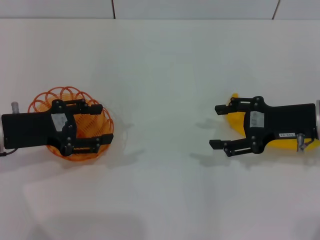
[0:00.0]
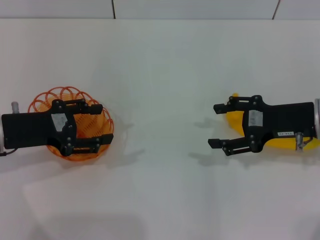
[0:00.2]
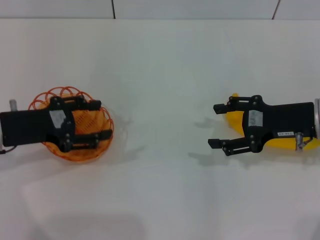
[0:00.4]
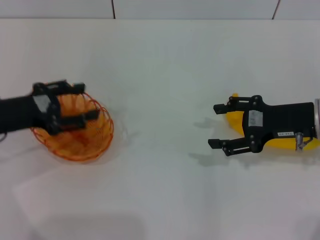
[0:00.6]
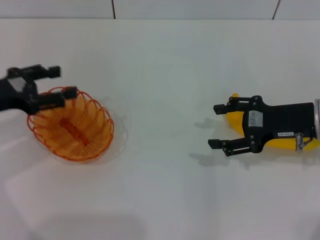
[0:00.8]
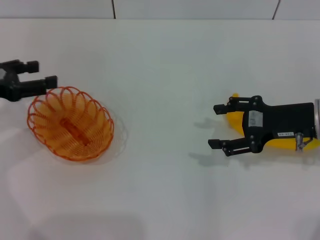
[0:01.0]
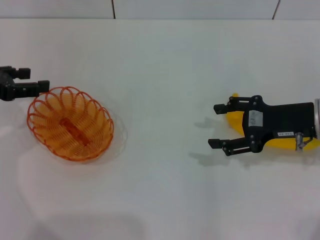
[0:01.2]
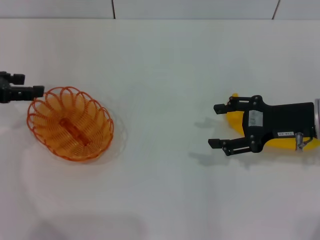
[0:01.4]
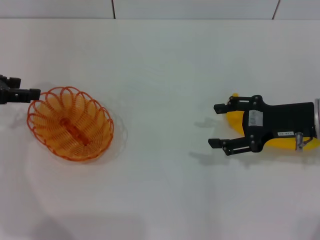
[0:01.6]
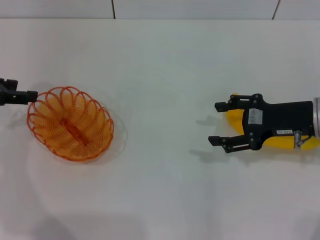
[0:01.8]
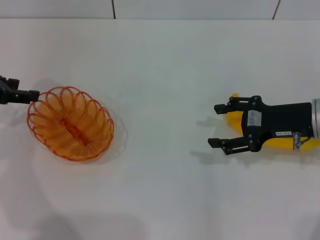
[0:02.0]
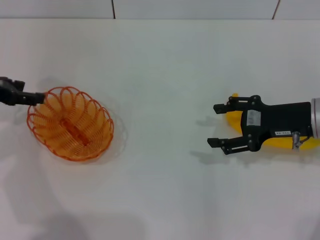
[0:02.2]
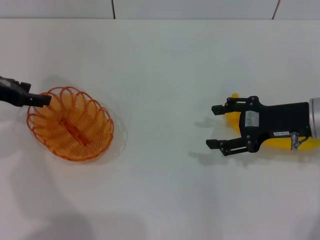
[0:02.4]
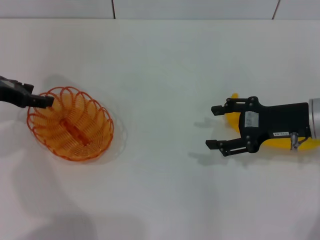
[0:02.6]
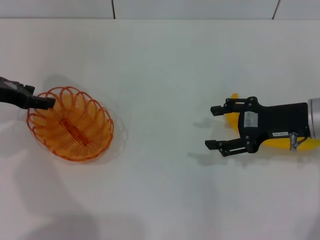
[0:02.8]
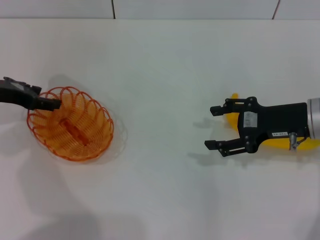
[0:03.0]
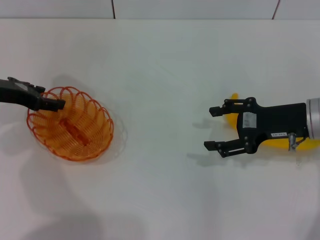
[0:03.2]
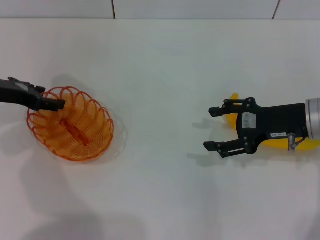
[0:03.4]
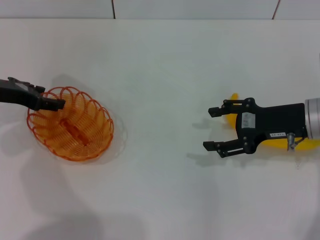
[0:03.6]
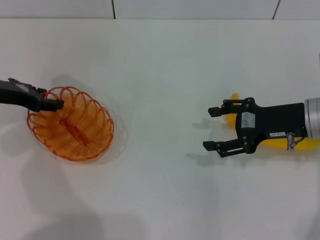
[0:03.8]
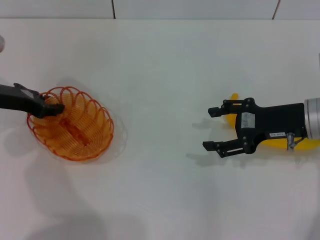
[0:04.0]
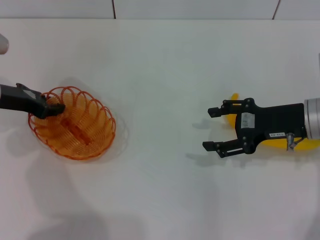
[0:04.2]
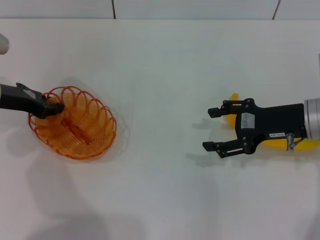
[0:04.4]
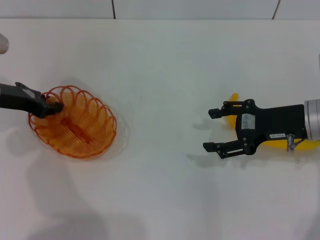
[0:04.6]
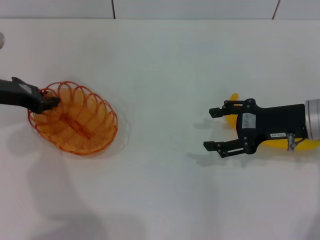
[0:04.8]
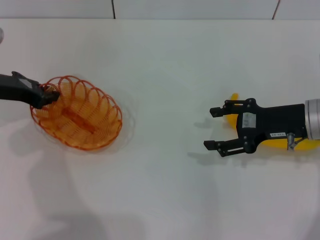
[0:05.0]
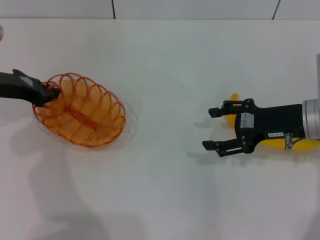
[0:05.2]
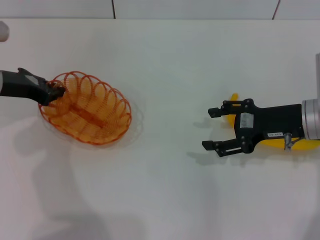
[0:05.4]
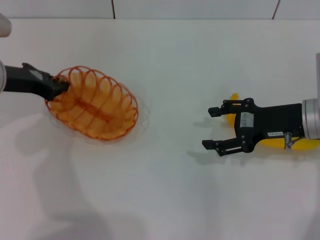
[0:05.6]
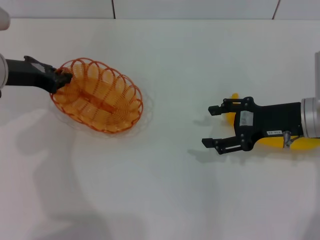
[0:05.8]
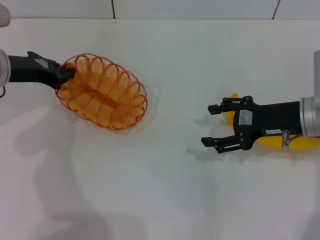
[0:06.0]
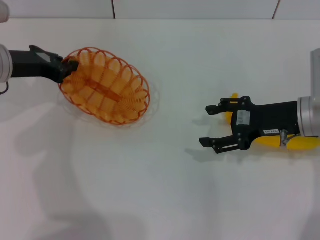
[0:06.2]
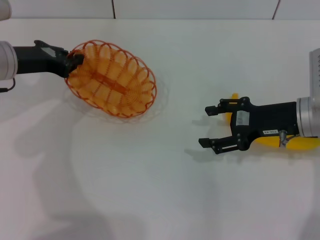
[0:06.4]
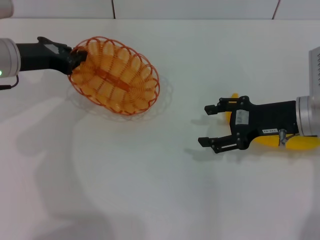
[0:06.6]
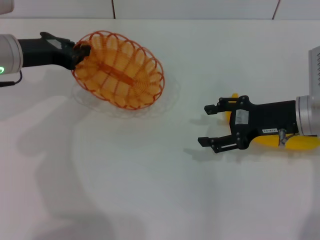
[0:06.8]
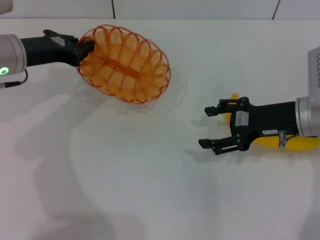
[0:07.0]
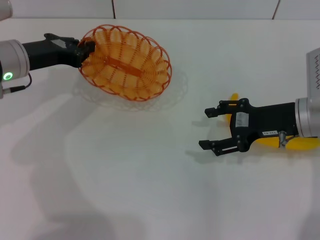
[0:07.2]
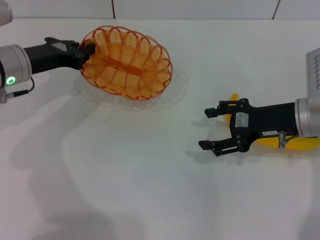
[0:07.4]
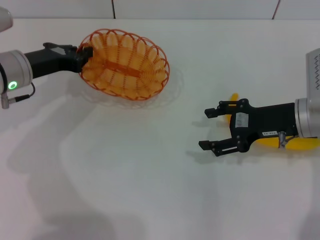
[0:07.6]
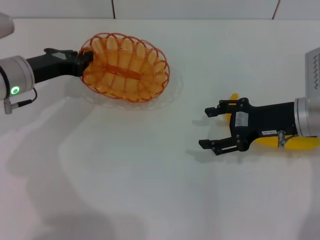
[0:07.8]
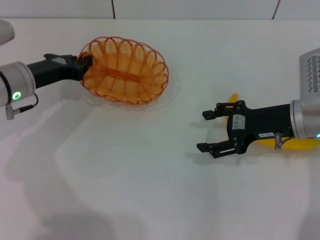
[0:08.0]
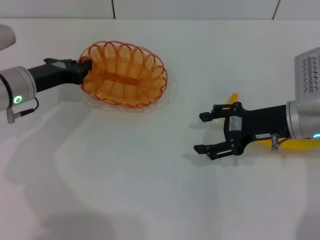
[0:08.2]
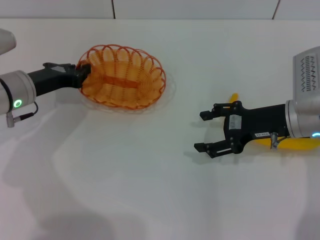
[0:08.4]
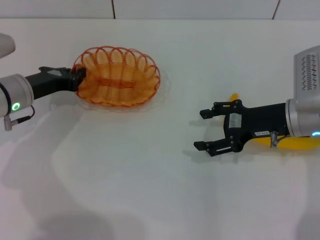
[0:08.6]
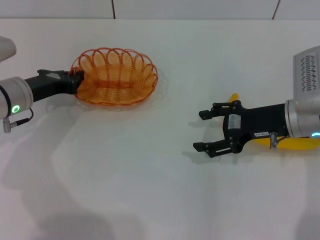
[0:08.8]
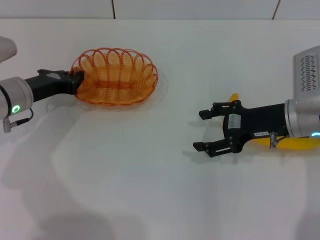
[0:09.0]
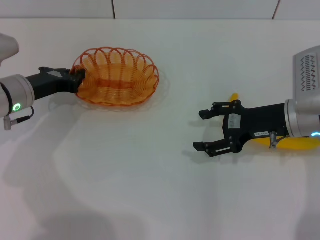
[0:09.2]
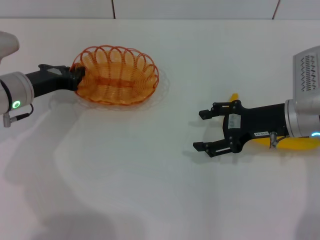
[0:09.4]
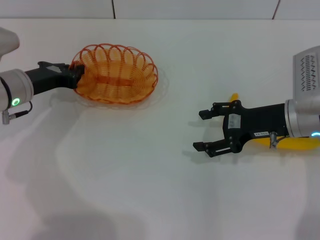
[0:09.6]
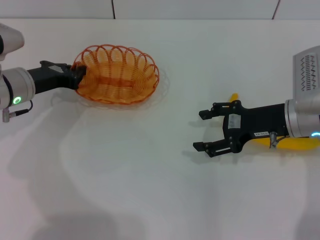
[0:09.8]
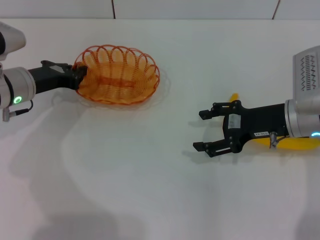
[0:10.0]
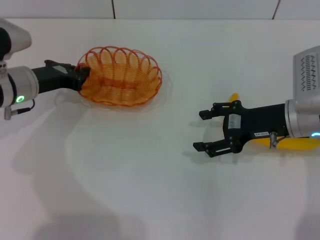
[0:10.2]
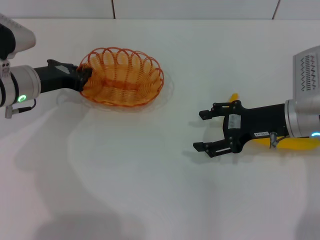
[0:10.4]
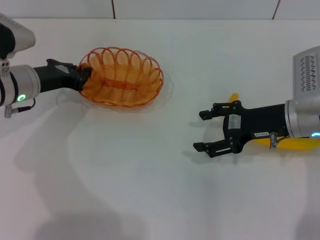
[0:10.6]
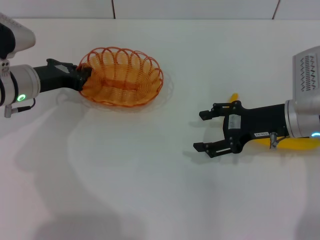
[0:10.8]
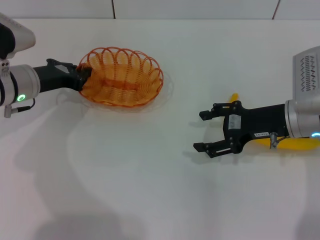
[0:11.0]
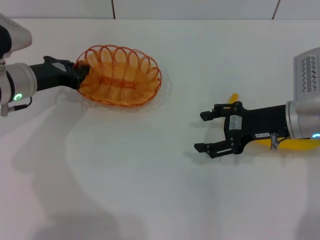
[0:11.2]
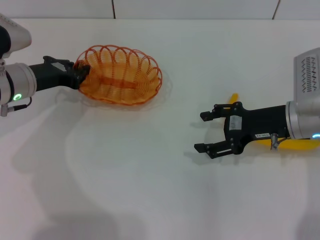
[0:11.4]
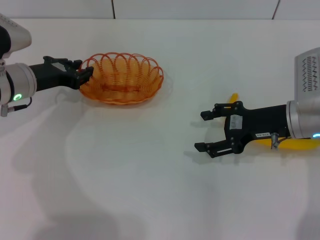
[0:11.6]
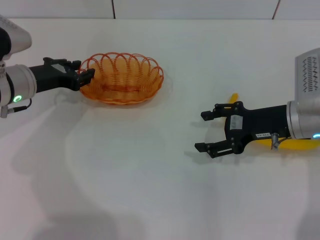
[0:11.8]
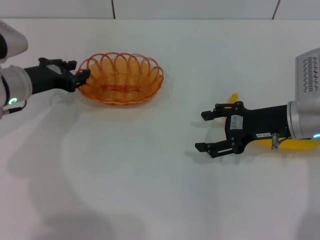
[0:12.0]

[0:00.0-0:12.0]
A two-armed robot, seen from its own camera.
Step, 0:00.0 to 0:05.8: Pick up the basket with the left gripper.
0:00.0 to 0:01.6: The left gripper travels to the left and upward by approximately 10 cm.
0:01.6 to 0:03.0: The left gripper moves about 5 cm.
0:03.0 to 0:04.4: The left gripper closes its fingers.
0:04.4 to 0:06.0: The grippers move only a little.
0:06.0 to 0:07.6: The grippers move only a little.
0:07.6 to 0:10.4: The grippers move only a little.
0:10.4 to 0:12.0: The left gripper opens up.

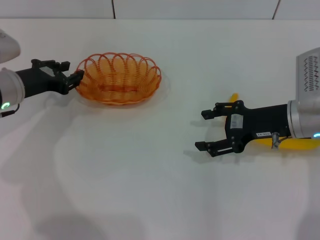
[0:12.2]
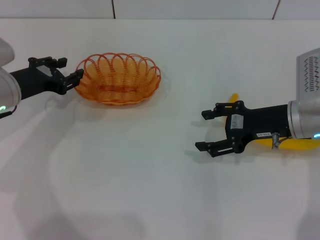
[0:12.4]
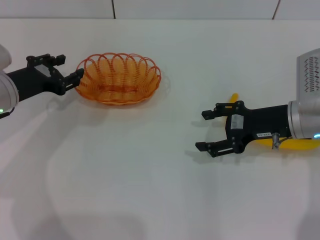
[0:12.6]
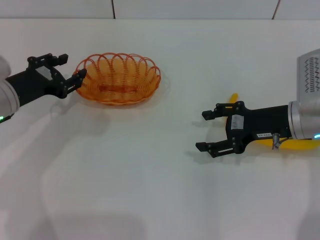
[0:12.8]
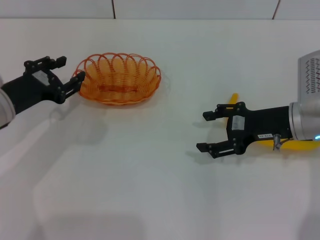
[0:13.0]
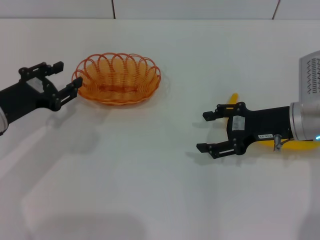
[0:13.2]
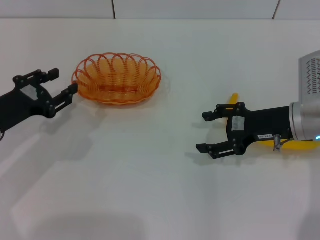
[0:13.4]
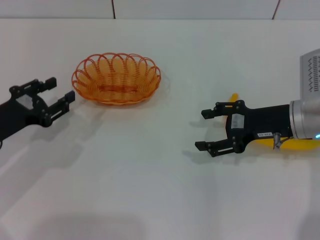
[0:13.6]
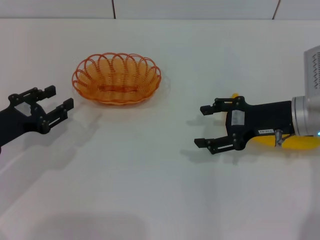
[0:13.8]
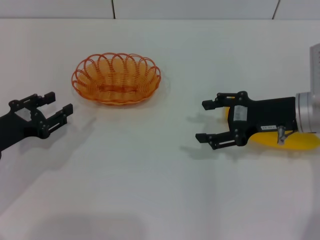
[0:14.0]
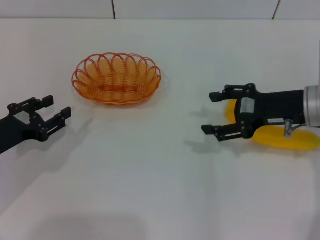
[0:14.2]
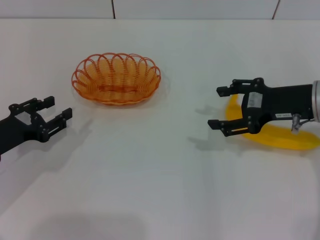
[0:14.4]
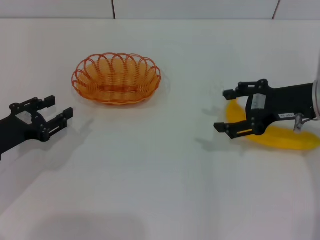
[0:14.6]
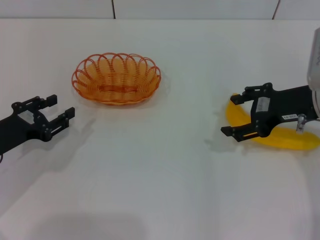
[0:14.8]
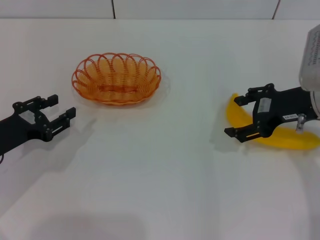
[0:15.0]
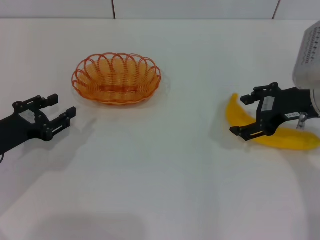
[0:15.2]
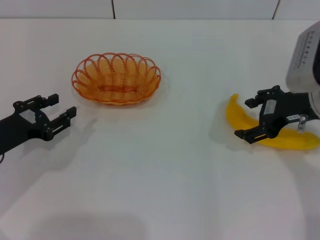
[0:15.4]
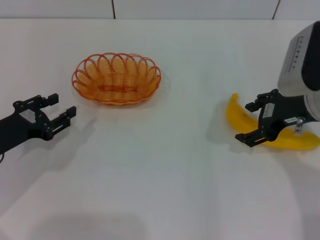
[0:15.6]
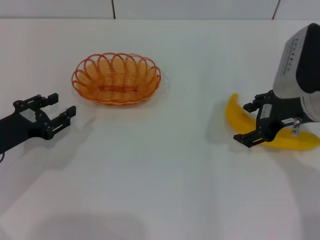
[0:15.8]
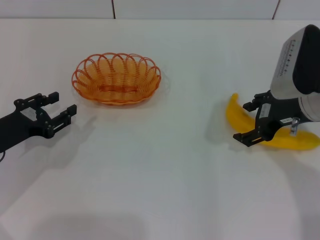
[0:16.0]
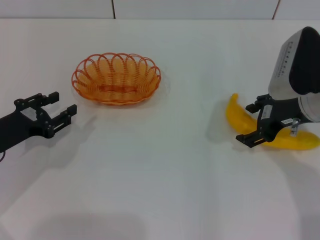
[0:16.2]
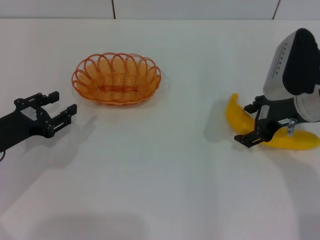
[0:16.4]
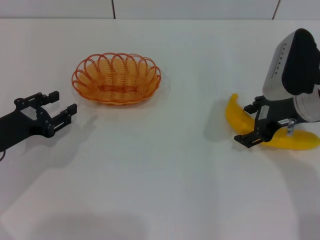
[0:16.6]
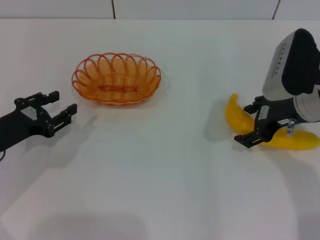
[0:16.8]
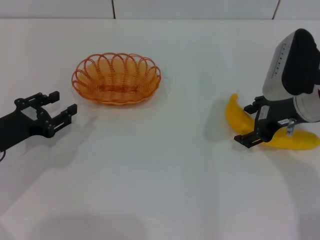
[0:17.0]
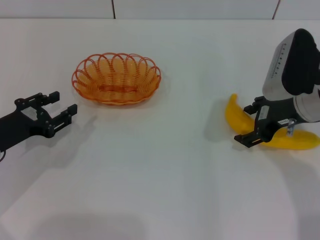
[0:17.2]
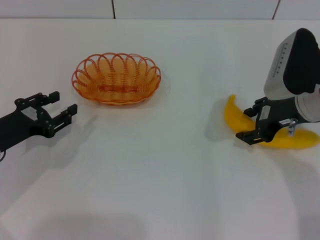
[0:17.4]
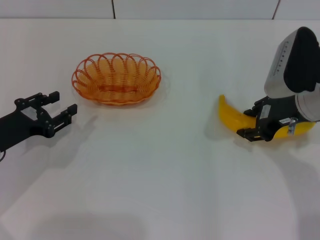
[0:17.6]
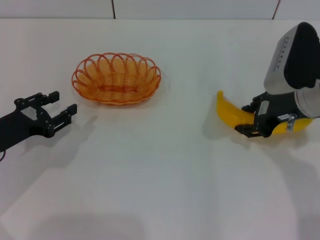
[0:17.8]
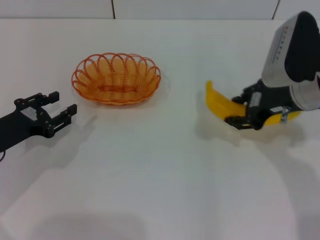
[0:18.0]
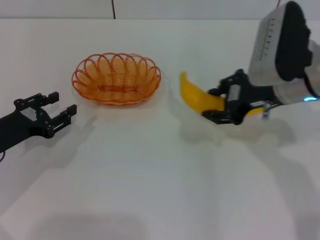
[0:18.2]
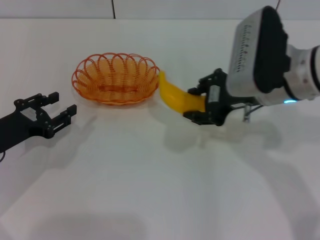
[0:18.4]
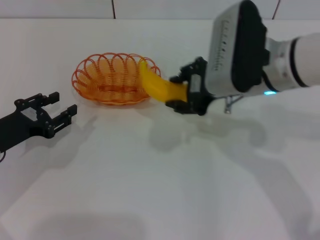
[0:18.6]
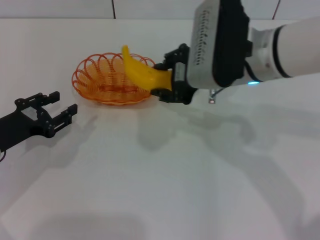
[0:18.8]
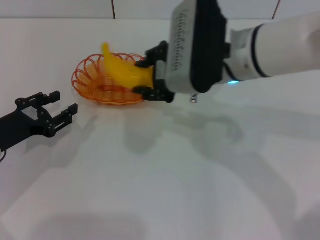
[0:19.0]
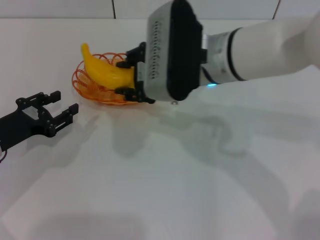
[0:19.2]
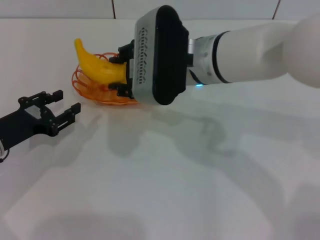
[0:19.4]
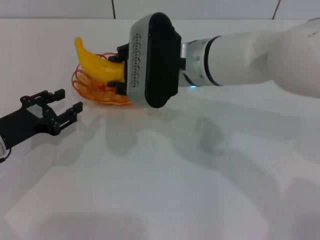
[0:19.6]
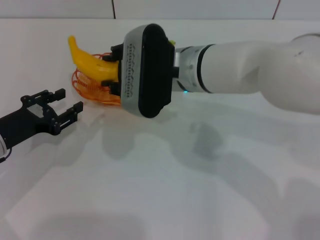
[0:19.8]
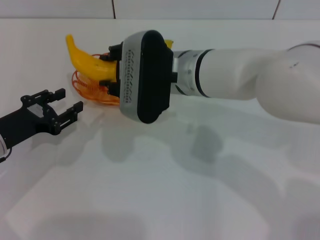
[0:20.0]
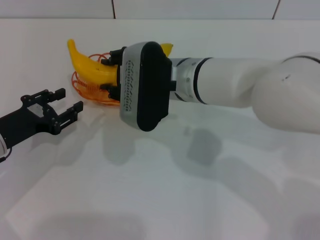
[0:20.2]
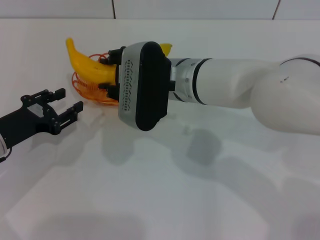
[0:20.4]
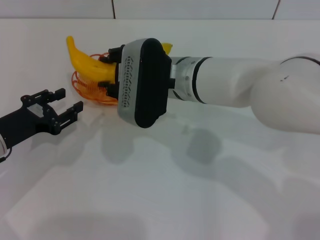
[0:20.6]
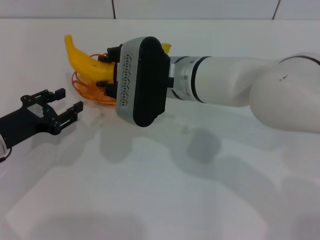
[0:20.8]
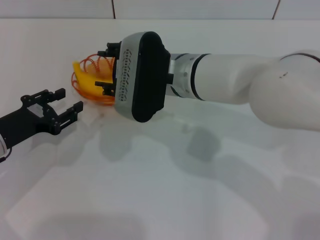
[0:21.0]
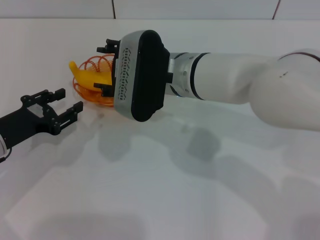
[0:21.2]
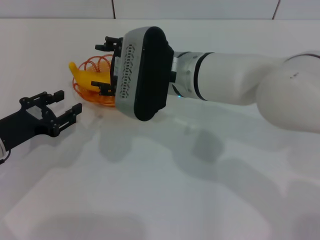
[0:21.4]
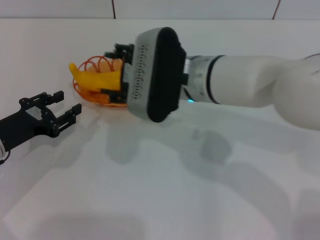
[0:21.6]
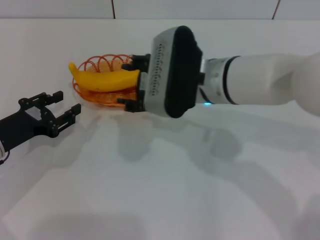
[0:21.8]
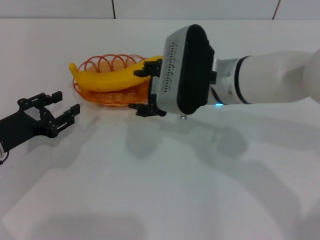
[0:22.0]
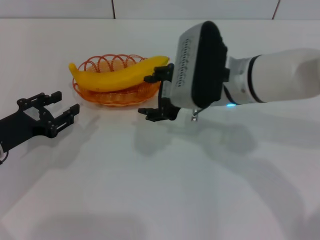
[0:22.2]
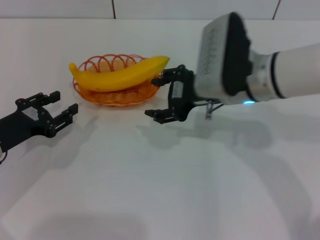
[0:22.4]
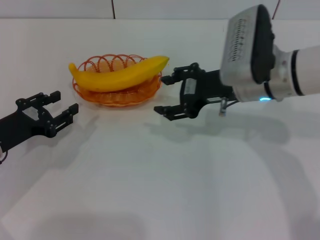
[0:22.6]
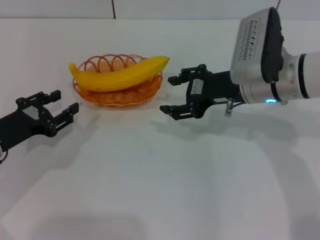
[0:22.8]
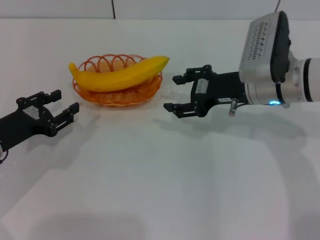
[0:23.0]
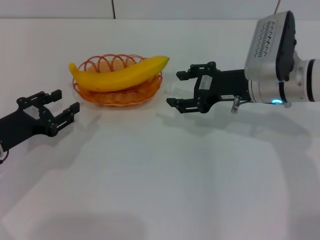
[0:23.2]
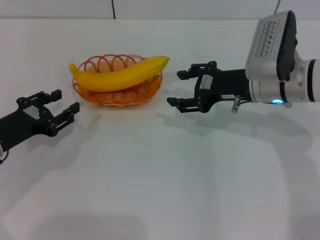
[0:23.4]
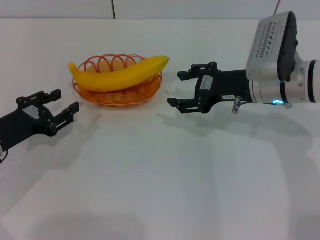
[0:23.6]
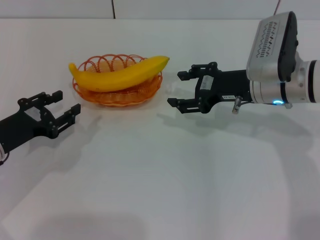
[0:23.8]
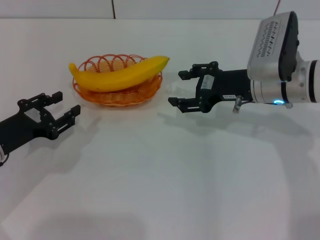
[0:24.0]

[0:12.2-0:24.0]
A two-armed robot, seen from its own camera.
Step, 0:12.8 to 0:18.2: Pick up the banana with the right gripper.
Step, 0:18.4 to 0:21.0: Place the banana into the basket with the right gripper.
0:12.2 to 0:13.6: The left gripper heads backward, covering some 10 cm.
0:13.6 to 0:15.2: The right gripper goes about 5 cm upward.
0:15.2 to 0:16.6: The grippers make only small movements.
0:16.6 to 0:18.2: The right gripper shifts by approximately 5 cm, and closes its fingers.
0:18.2 to 0:19.6: The right gripper is displaced to the left by approximately 15 cm.
0:19.6 to 0:21.0: There are only small adjustments of the grippers.
0:21.0 to 0:22.6: The right gripper is displaced to the right by about 10 cm, and opens its fingers.
0:22.6 to 0:24.0: There are only small adjustments of the grippers.
